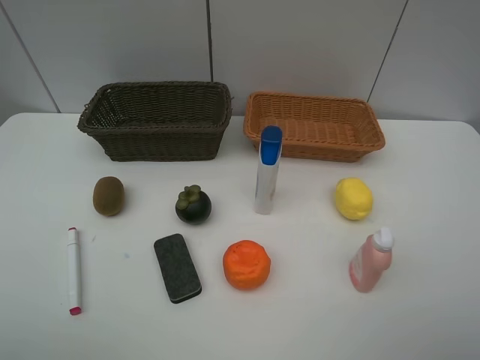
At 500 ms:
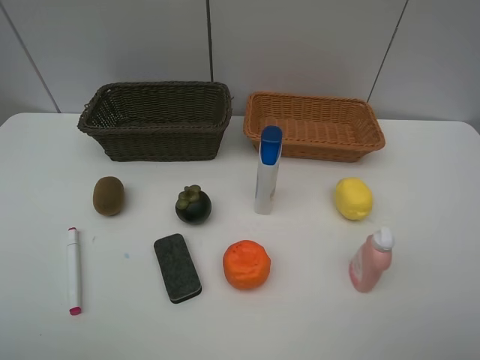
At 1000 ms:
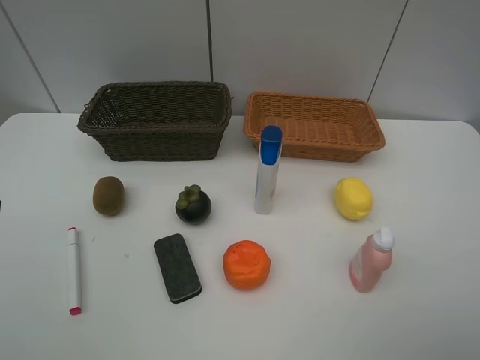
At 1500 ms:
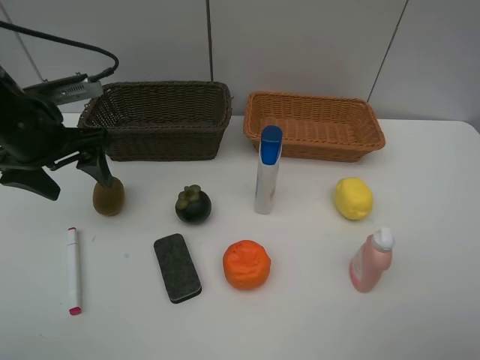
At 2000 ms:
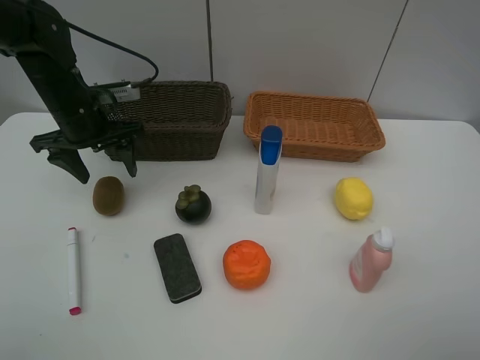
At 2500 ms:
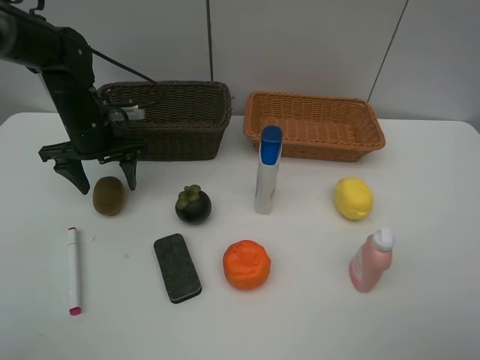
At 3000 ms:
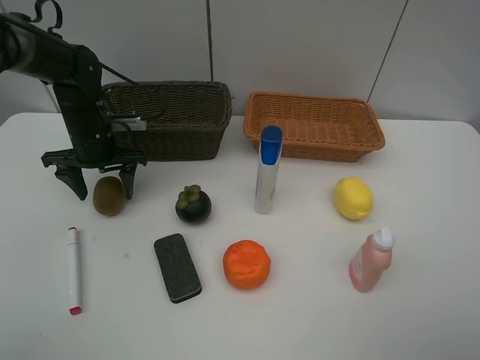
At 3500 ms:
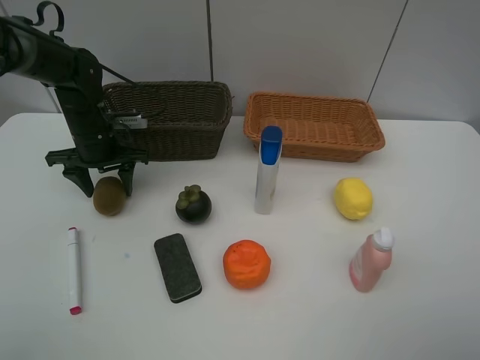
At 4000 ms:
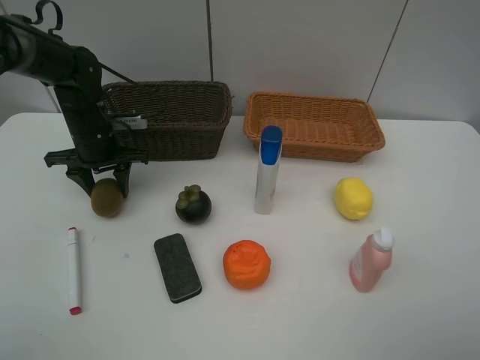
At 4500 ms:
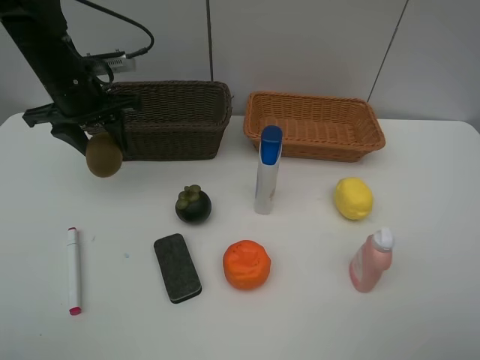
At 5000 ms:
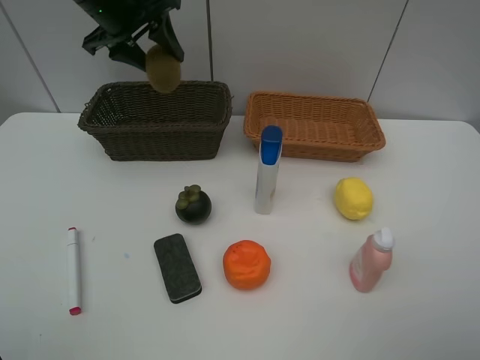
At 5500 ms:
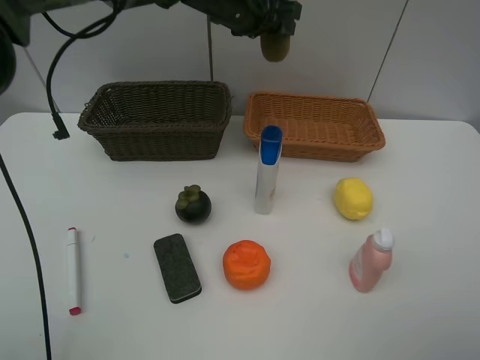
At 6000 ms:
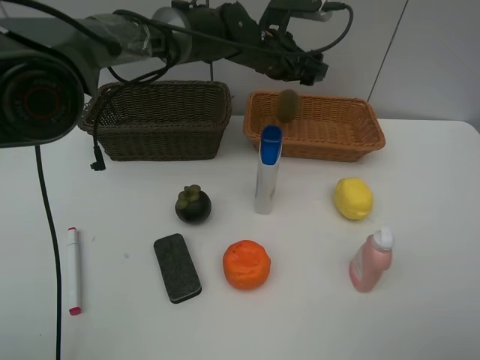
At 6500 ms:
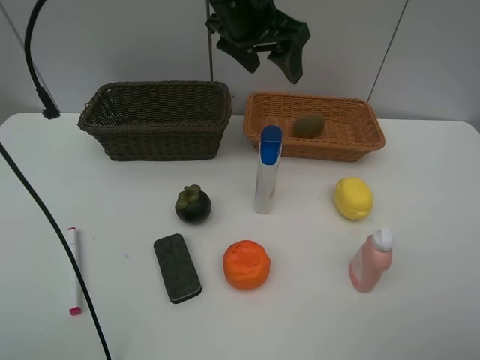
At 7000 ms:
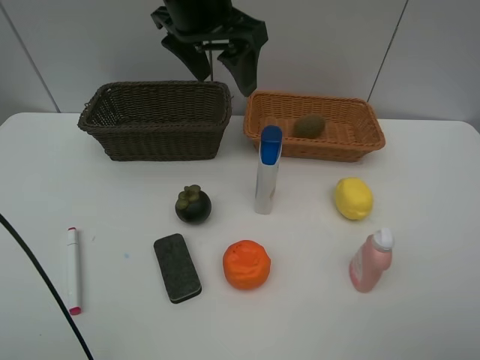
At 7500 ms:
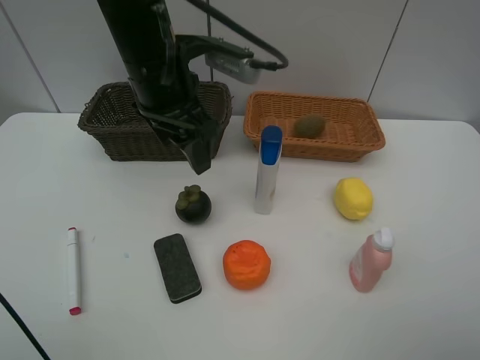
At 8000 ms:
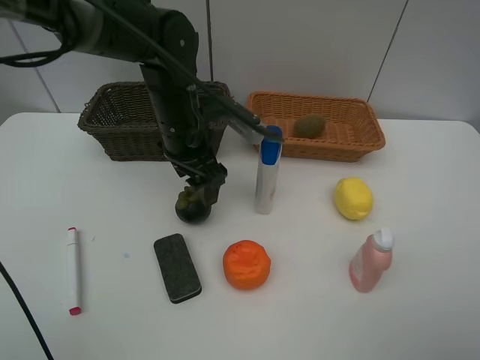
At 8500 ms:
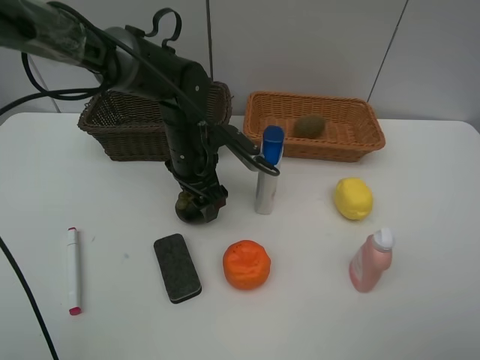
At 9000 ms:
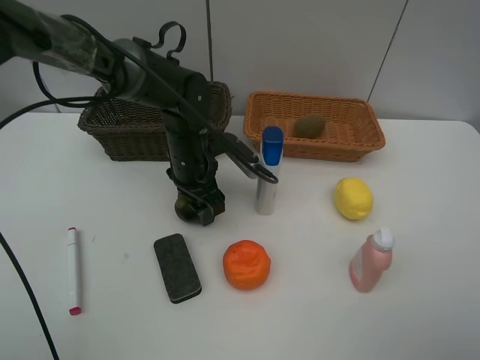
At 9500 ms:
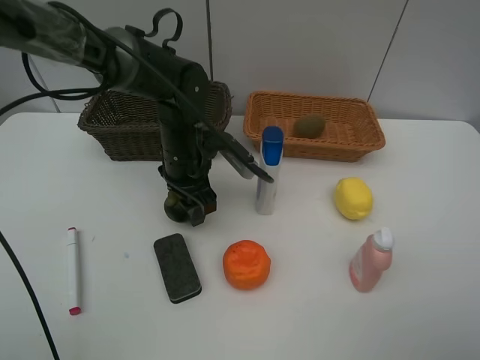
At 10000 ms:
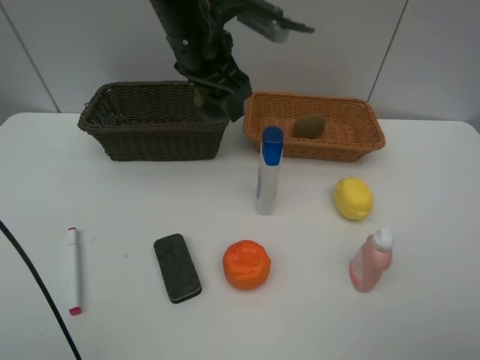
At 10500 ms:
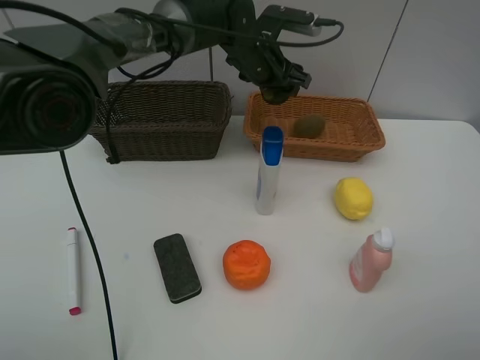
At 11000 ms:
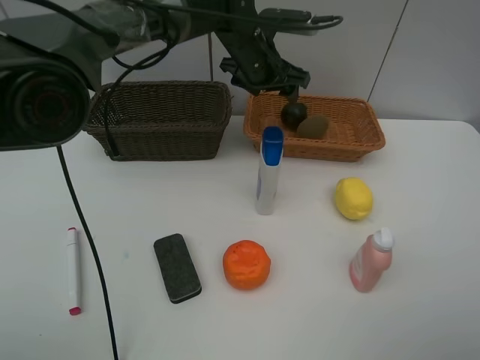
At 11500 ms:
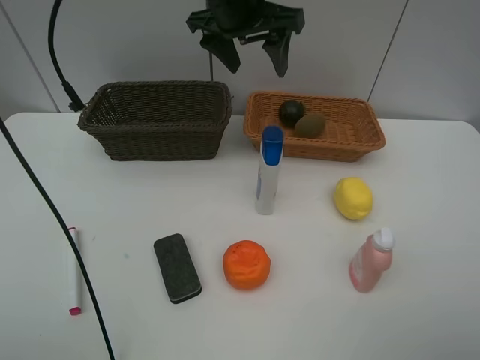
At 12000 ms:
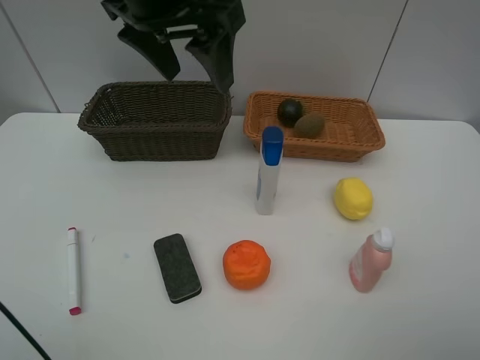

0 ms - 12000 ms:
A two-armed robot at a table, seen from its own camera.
Task of the whole recording: Place multiple objects separately in different baskets.
Step, 0 ms - 4000 ms: Pick up kiwi with left gripper.
Step, 4500 ms - 6000 ms: Place the kiwi in the light basket with left gripper.
Step, 6500 ms - 9500 ms: Pick up the mangosteen with left gripper.
Step, 10000 ms - 10500 ms: Place the mangosteen in the light basket with left gripper.
0 ms - 2000 ms: The left gripper is displaced forward by about 35 cm.
2000 ms - 4000 ms: The left gripper goes roughly 5 cm downward, and closes its fingers.
4000 ms - 6000 ms: The left gripper is displaced to the right by some 25 cm, and opens up.
6000 ms - 8000 ms: The left gripper travels backward and to the left by about 15 cm, and travels upward and back again, roughly 10 cm each way.
8000 ms - 10000 ms: The left gripper is displaced upward by about 10 cm.
10000 ms - 12000 ms: The left gripper is displaced backward and upward by roughly 10 cm.

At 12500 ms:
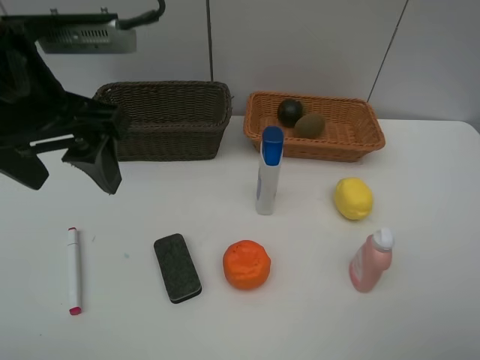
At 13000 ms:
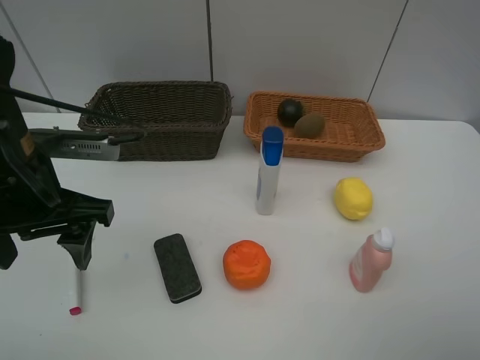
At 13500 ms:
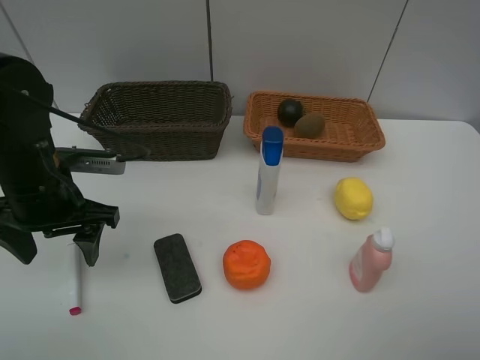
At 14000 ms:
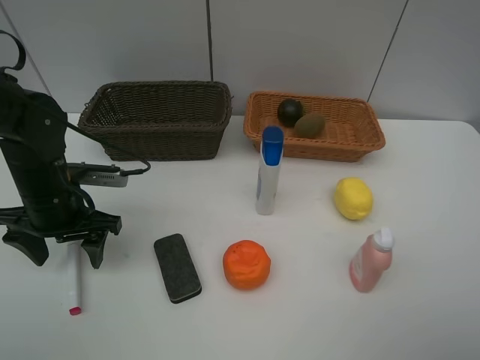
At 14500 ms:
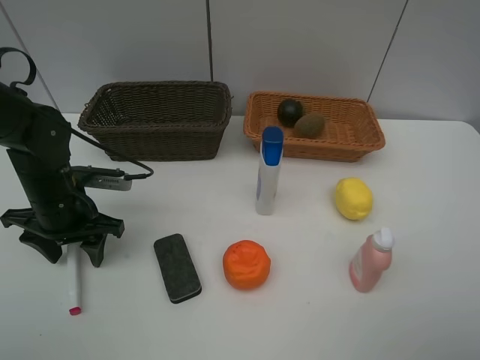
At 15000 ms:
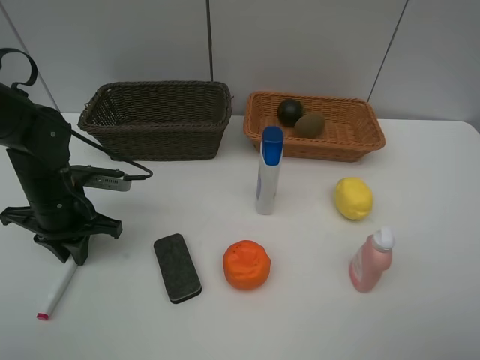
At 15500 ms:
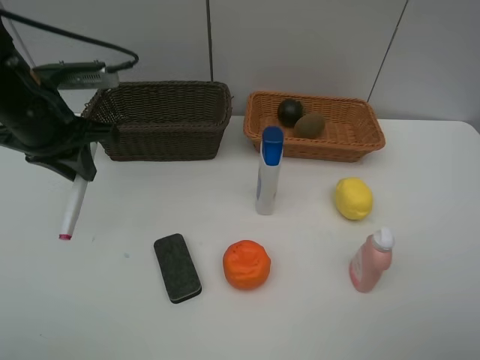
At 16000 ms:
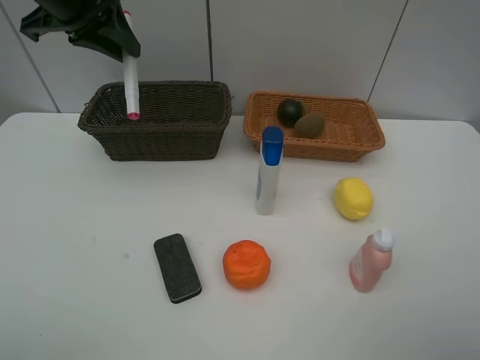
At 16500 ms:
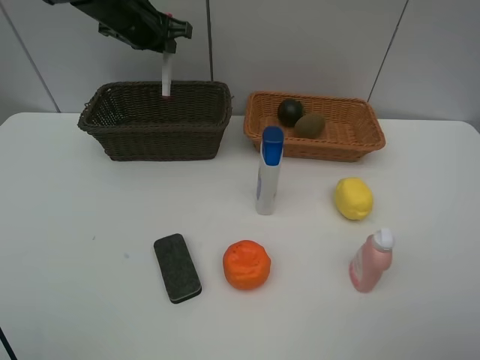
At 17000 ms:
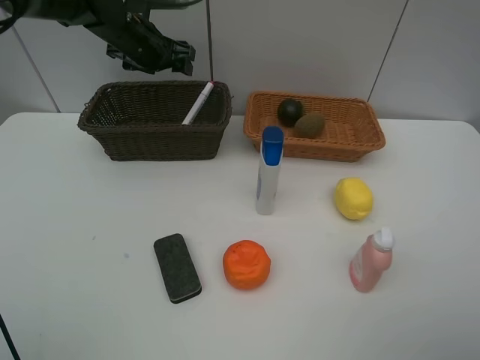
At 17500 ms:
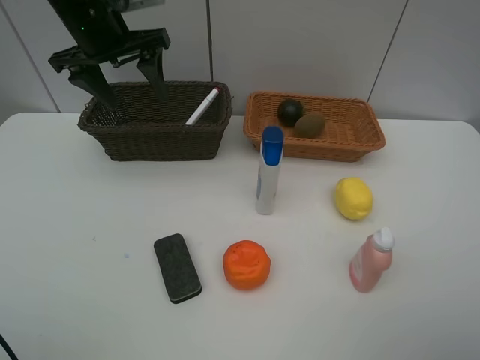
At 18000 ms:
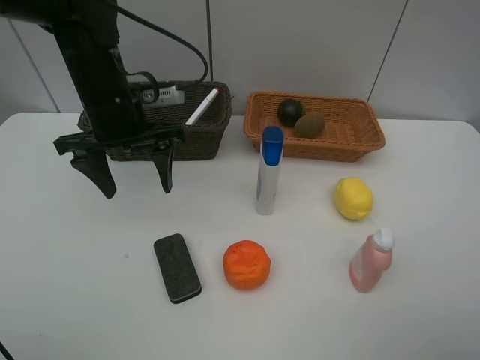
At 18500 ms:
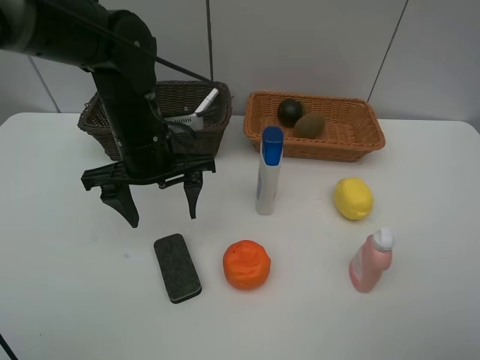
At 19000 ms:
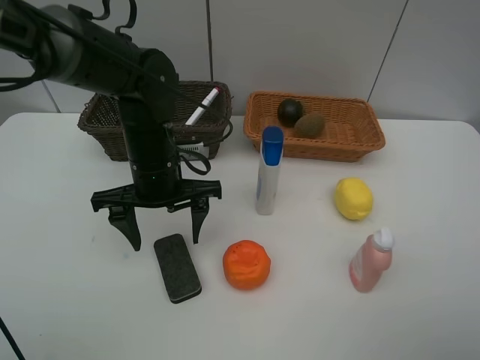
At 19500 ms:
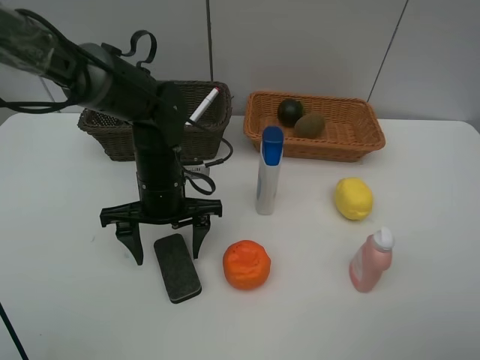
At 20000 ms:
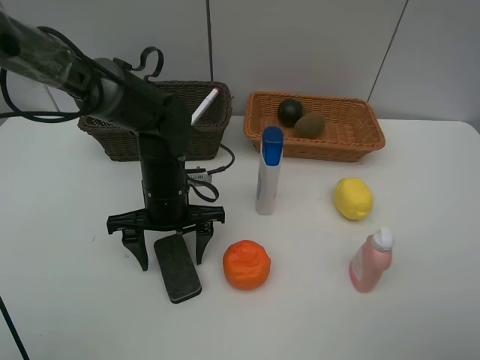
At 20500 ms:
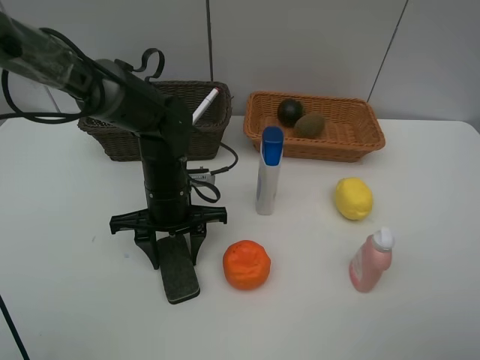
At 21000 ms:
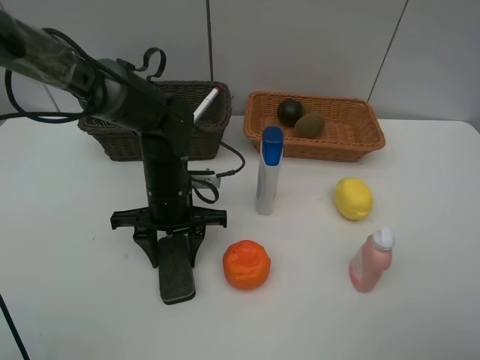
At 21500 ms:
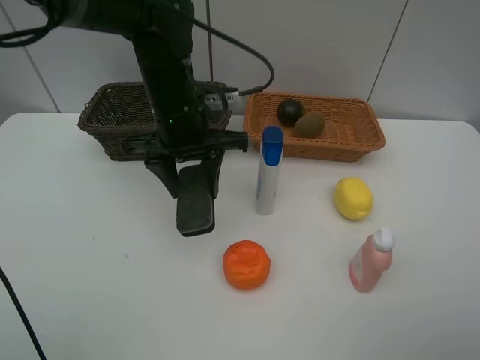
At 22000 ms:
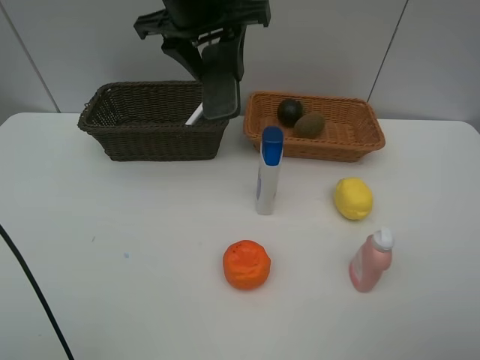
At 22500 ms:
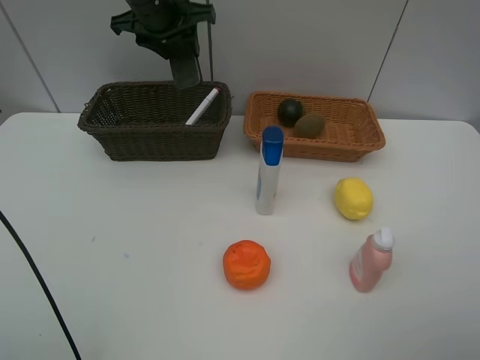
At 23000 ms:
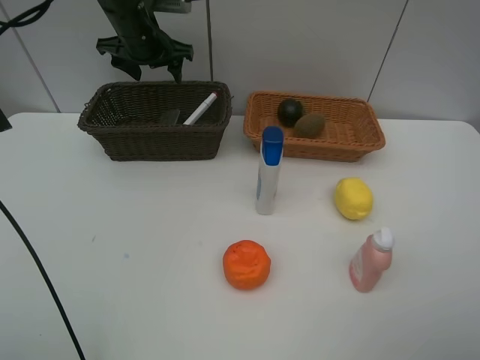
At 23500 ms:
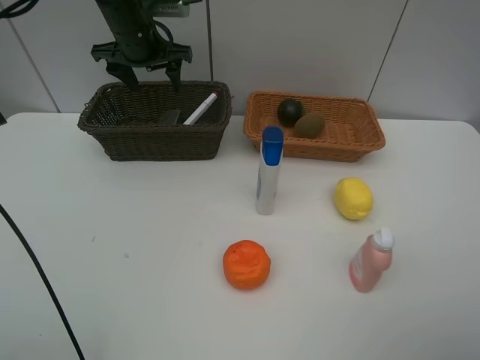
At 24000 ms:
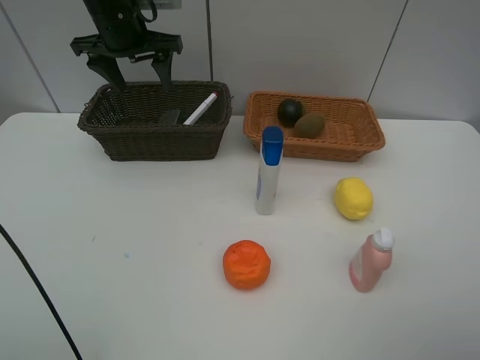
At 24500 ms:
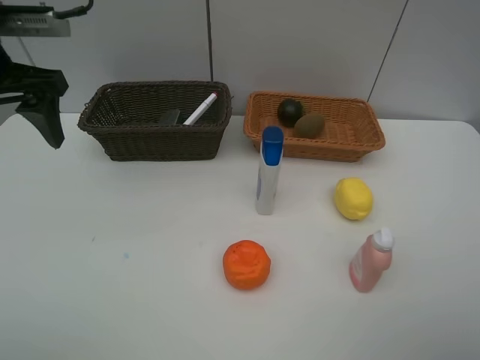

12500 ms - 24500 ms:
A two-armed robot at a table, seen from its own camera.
Task of the whole recording: Place multiple objects separately in different baskets.
Step, 12500 ms - 15000 ms: Pick up the red marker with left gripper.
Step, 15500 ms - 16500 ms: Place the red marker in the dark basket with left gripper.
Step, 17000 ms - 21000 ms: Pick up blackboard eraser with left gripper.
Step, 21500 ms - 23000 ms: Place the blackboard eraser in the dark basket with left gripper.
12500 ms - 14500 ms: The left gripper heads downward, covering approximately 20 cm.
14500 ms - 16500 ms: The left gripper goes about 25 cm forward and upward, and closes up.
16500 ms - 18500 ms: The left gripper travels backward by about 20 cm, and opens up.
18500 ms - 20500 ms: The left gripper goes approximately 10 cm downward, and closes its fingers.
20500 ms - 22500 ms: The left gripper travels upward and forward by some 25 cm.
22500 ms - 24500 ms: The left gripper goes about 25 cm backward and to the left, and opens its fingers.

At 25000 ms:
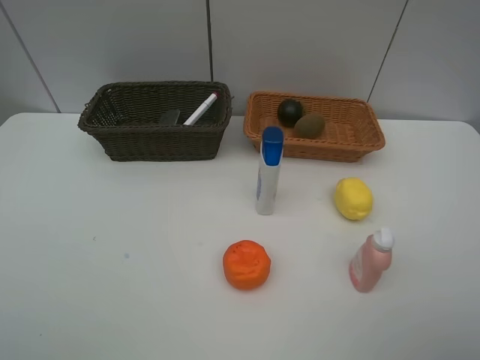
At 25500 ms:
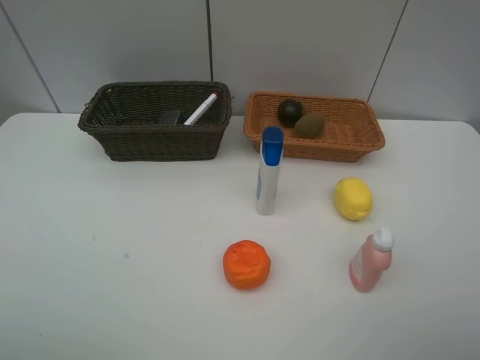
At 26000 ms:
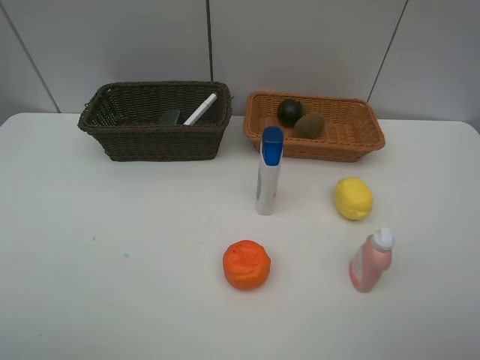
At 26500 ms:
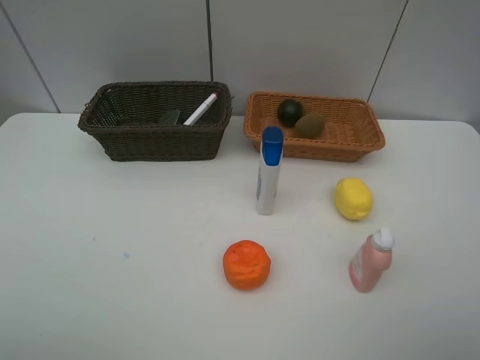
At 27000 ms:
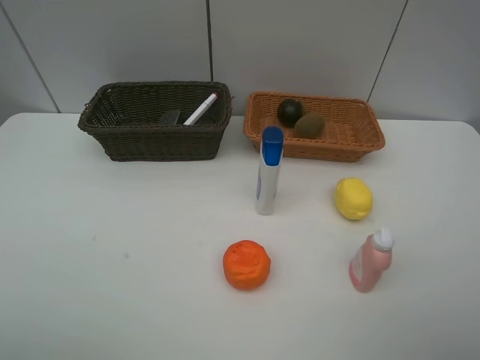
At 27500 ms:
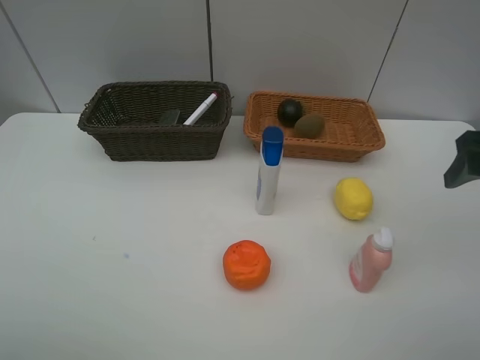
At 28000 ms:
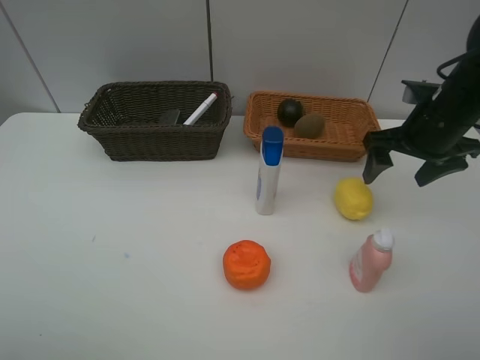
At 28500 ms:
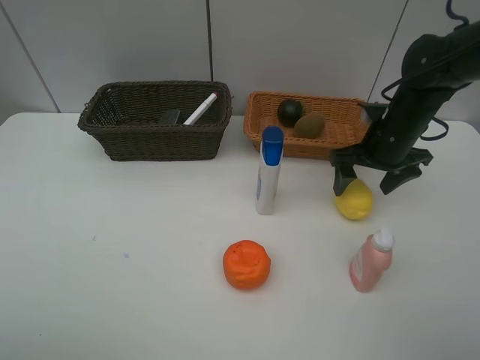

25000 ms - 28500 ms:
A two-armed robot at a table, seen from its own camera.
Task of the whole recording: Place multiple objects separately in different baskets.
27000 ms - 28500 ms: The right gripper moves forward and downward, some 35 cm.
